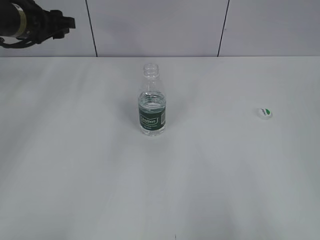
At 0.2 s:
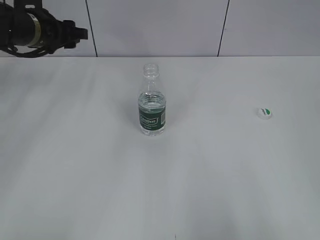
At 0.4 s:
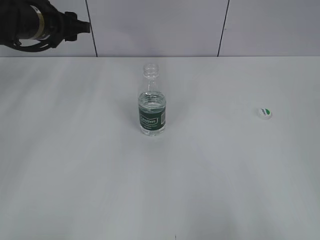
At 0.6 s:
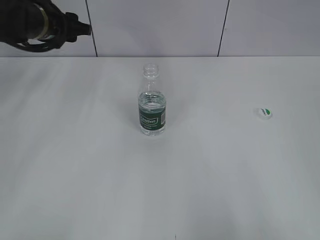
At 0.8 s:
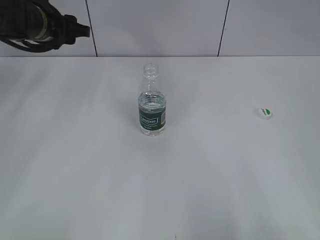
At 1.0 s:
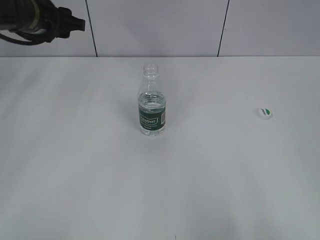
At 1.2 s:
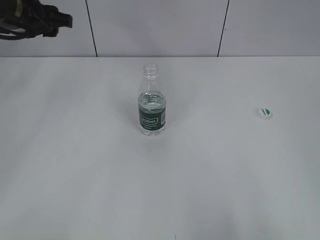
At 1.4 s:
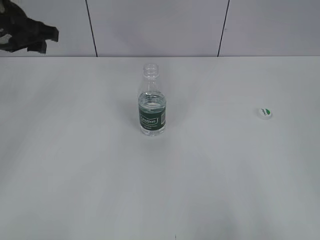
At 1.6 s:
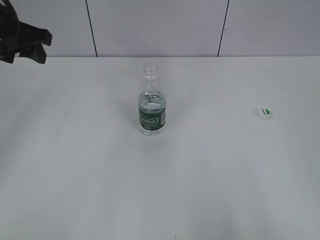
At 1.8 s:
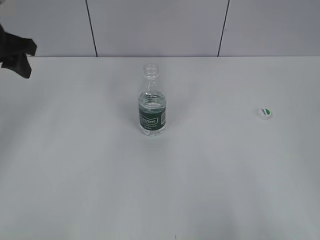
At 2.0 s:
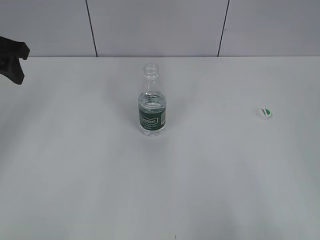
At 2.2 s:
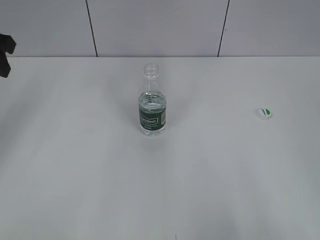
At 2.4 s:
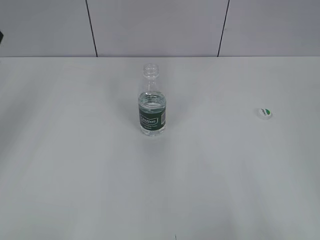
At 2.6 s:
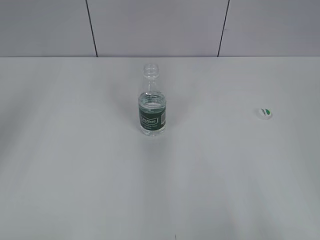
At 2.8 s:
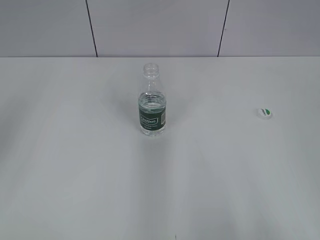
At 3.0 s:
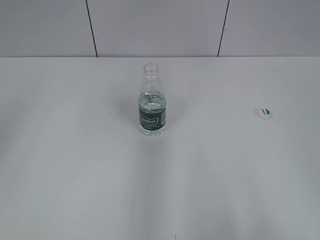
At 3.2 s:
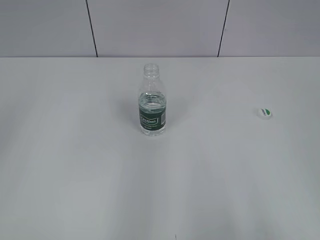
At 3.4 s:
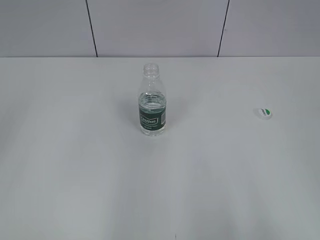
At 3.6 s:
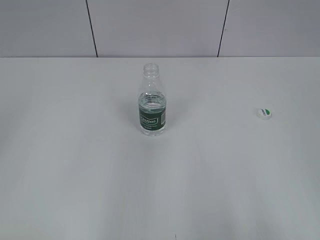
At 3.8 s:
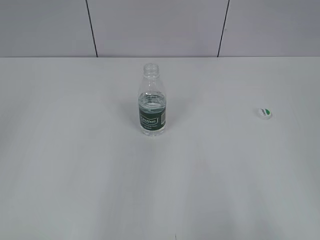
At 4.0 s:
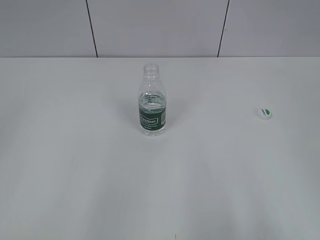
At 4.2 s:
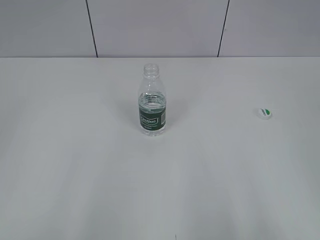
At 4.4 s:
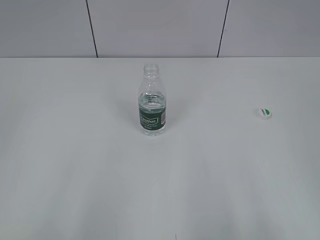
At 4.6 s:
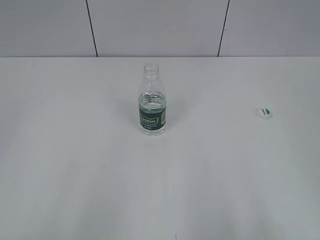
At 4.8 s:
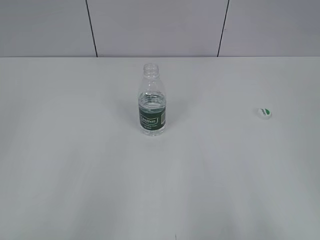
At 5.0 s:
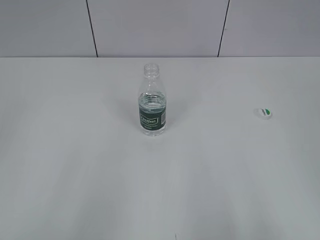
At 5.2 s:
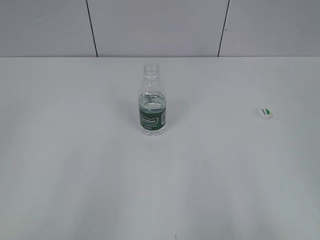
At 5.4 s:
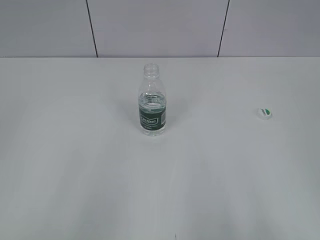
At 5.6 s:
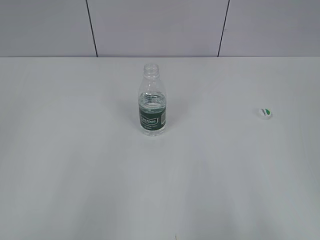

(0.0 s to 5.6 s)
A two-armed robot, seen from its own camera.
0.0 s - 1.4 s: The left gripper goes roughly 5 cm backward.
1.4 s - 2.8 s: The left gripper goes some 20 cm backward and upward.
